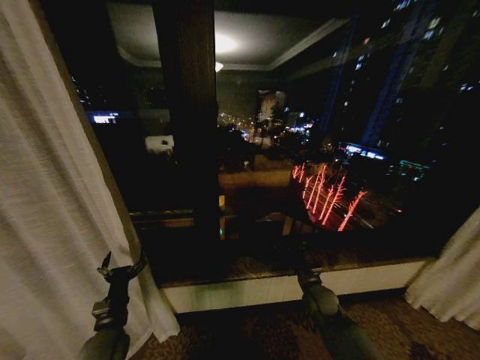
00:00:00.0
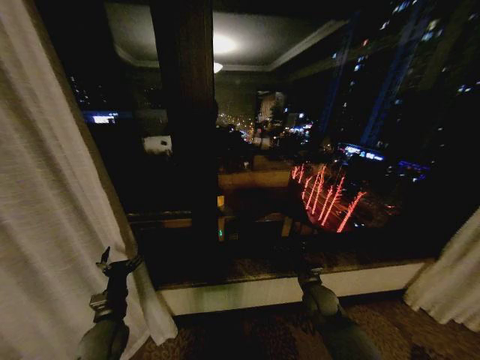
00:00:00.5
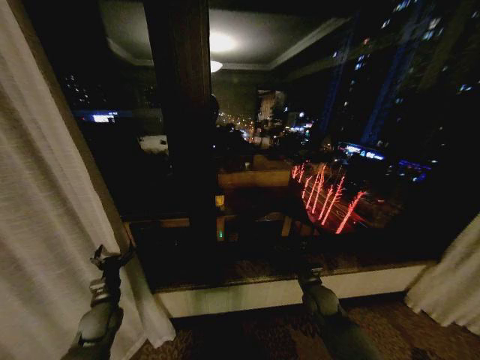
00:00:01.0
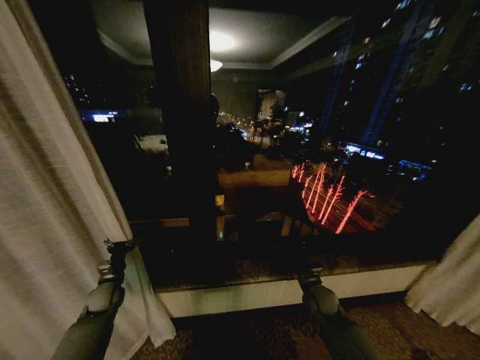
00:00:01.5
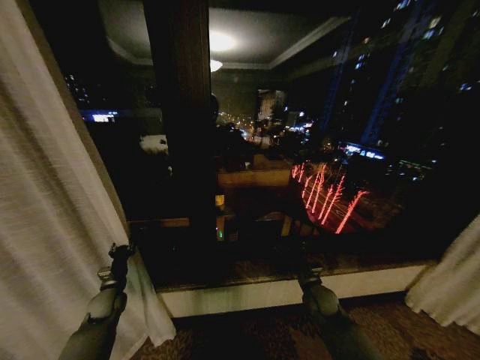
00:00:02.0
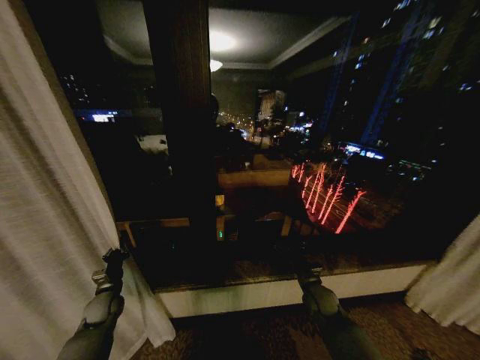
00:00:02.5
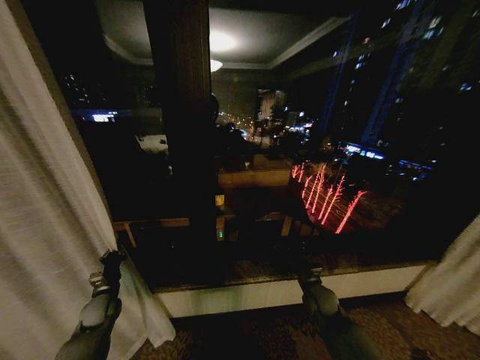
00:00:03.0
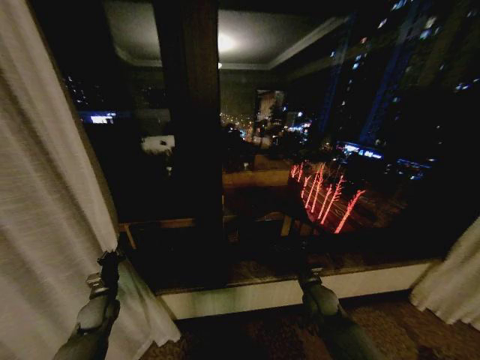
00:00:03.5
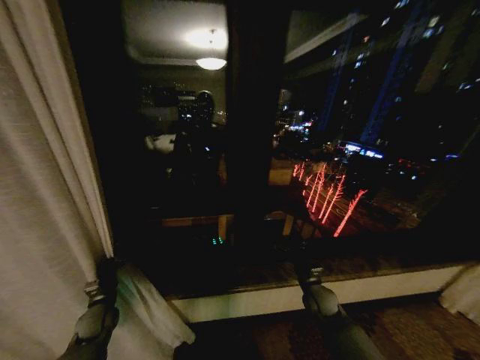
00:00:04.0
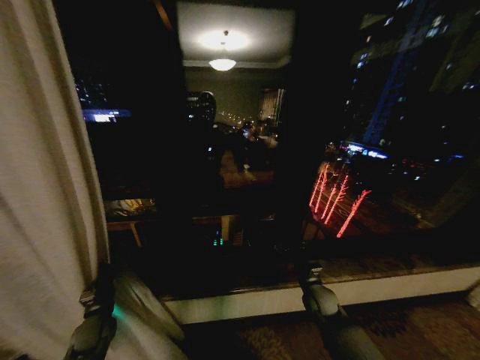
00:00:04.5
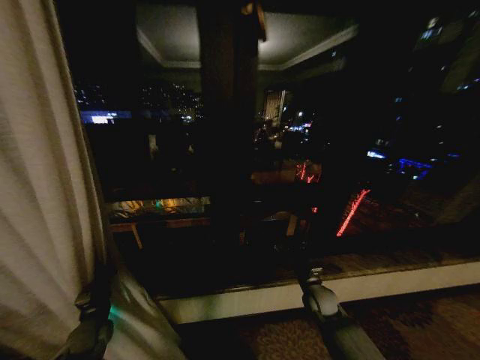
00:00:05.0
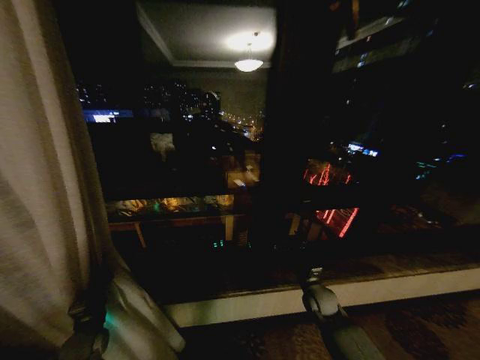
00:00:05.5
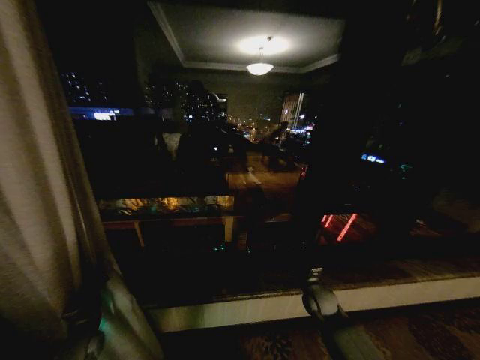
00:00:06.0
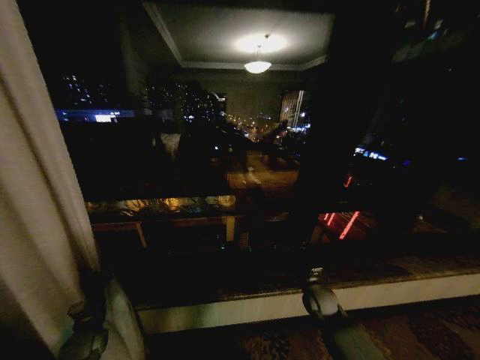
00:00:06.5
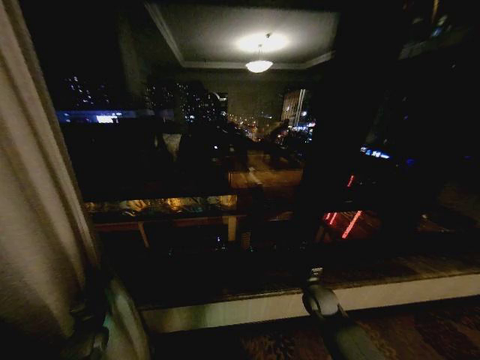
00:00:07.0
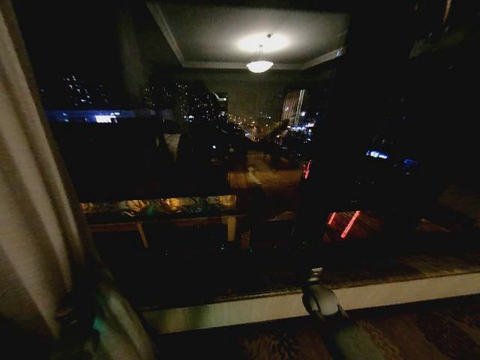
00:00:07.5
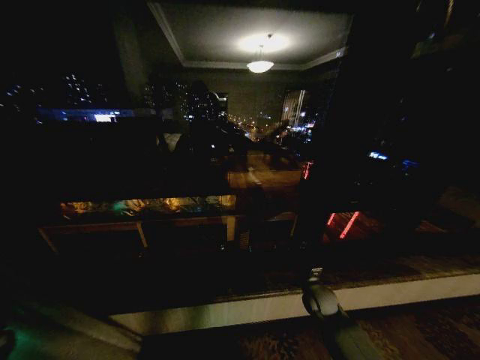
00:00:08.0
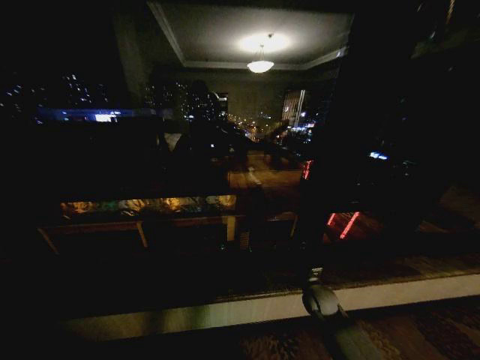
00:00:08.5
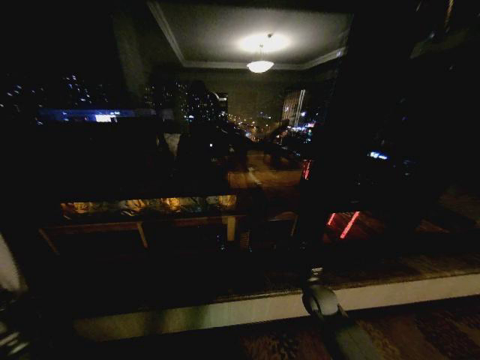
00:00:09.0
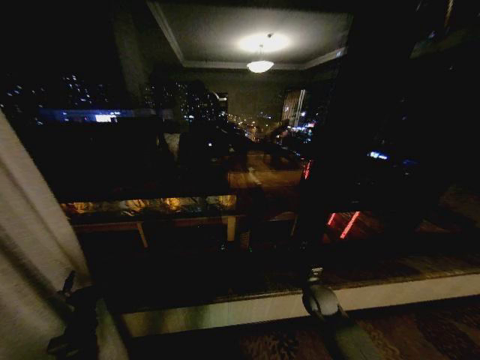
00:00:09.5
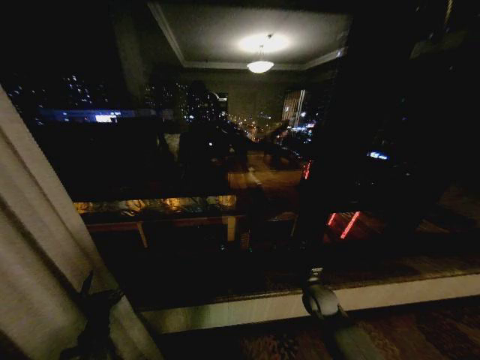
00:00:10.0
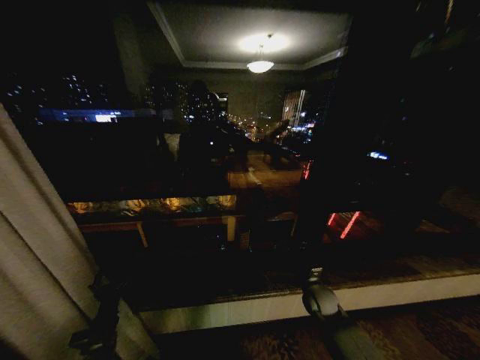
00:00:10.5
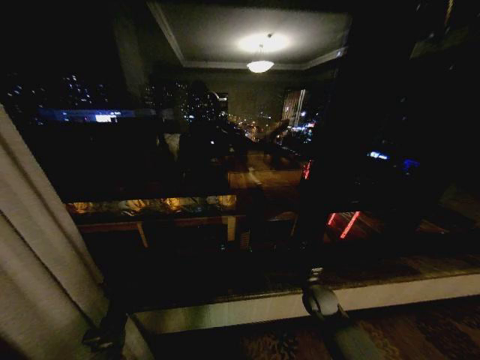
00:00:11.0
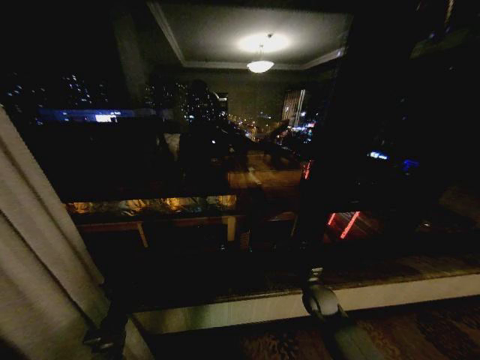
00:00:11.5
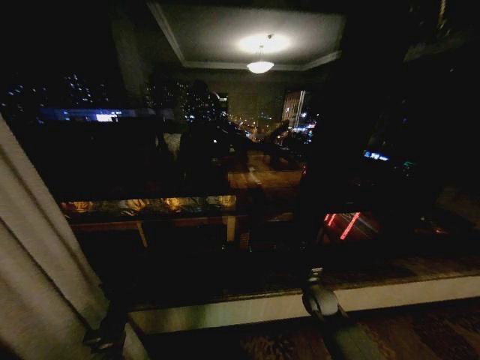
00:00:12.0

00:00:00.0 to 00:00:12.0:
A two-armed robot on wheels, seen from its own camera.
Task of the whole recording: Open the curtains by pulling them apart, changing their state from closed to fully open.
00:00:00.0 to 00:00:02.0: The left gripper shifts some 15 cm forward and to the left, and closes its fingers.
00:00:02.0 to 00:00:04.0: The left gripper closes.
00:00:04.0 to 00:00:06.0: The left gripper moves backward, roughly 5 cm.
00:00:06.0 to 00:00:08.0: The left gripper moves to the left, approximately 20 cm.
00:00:08.0 to 00:00:10.0: The left gripper goes some 30 cm to the right, and opens its fingers.
00:00:10.0 to 00:00:12.0: The grippers stay close to where they were, moving slightly.
